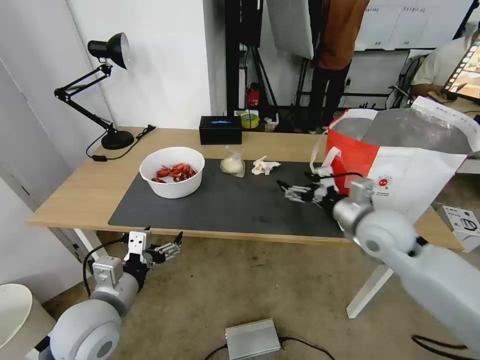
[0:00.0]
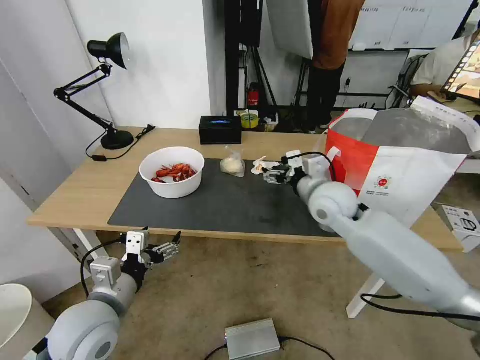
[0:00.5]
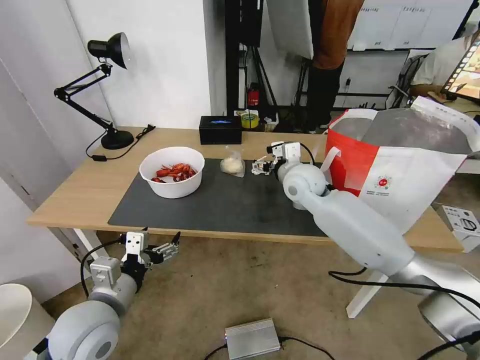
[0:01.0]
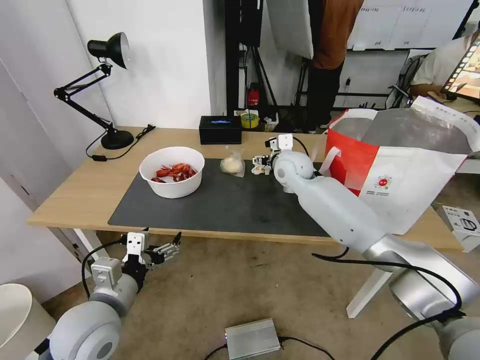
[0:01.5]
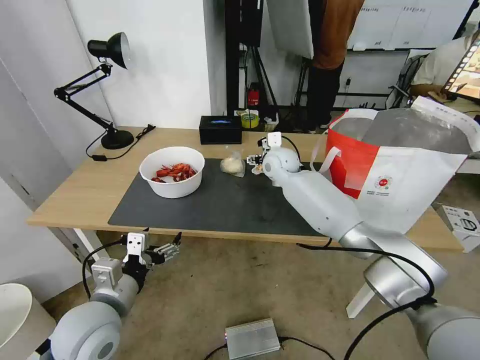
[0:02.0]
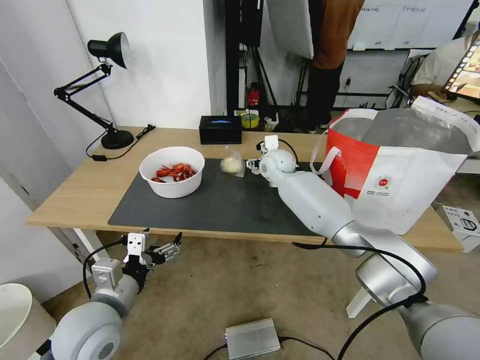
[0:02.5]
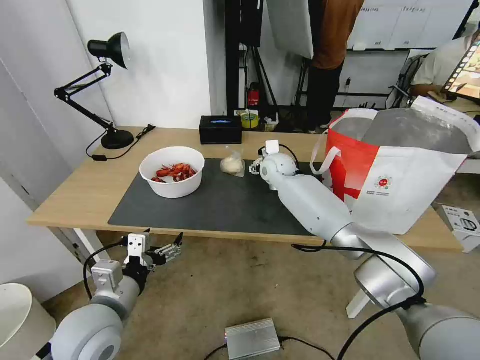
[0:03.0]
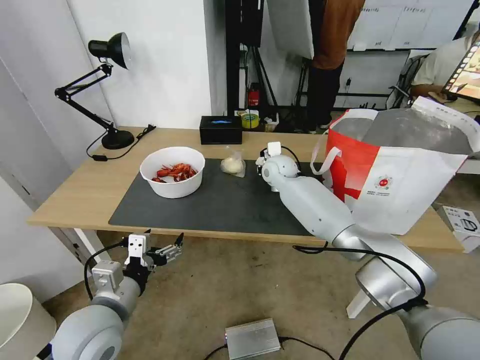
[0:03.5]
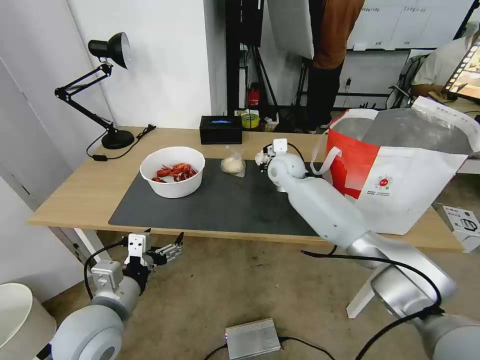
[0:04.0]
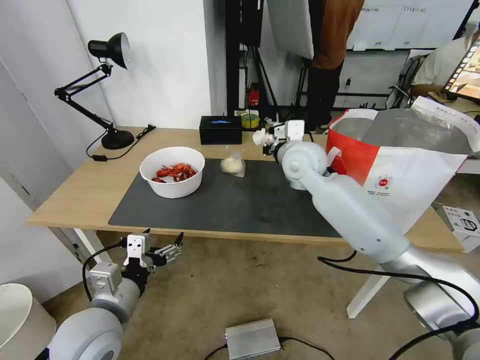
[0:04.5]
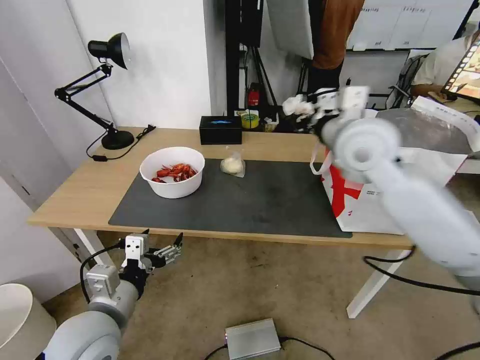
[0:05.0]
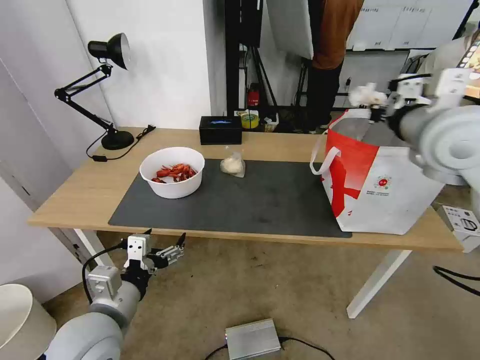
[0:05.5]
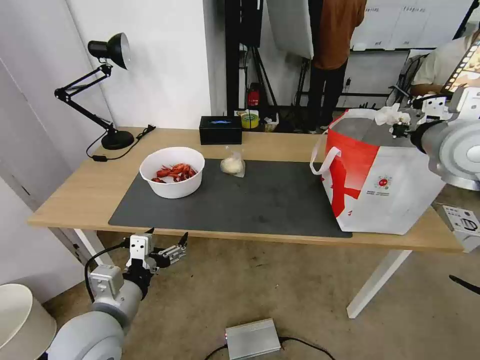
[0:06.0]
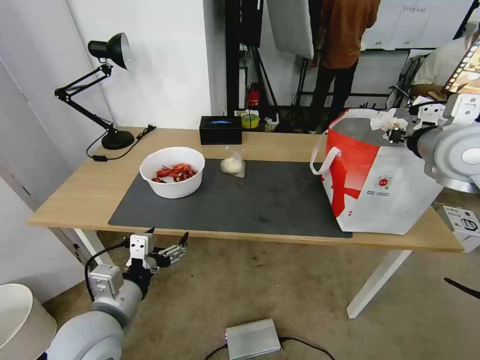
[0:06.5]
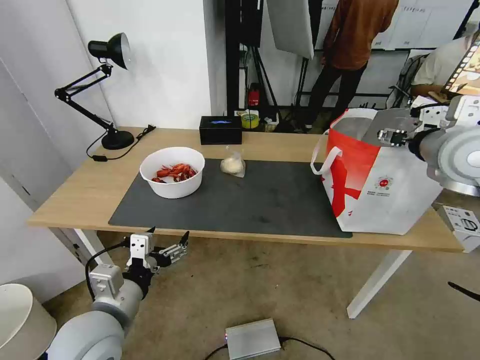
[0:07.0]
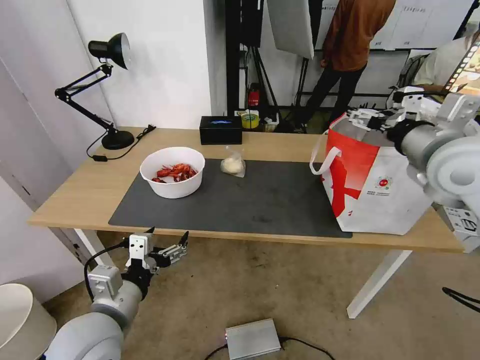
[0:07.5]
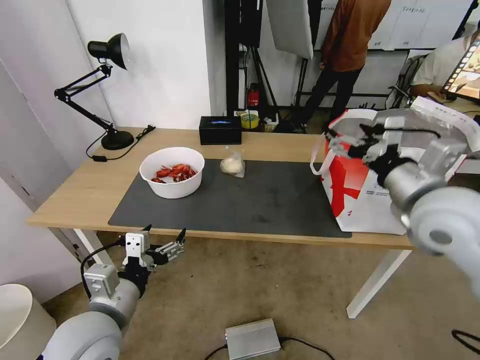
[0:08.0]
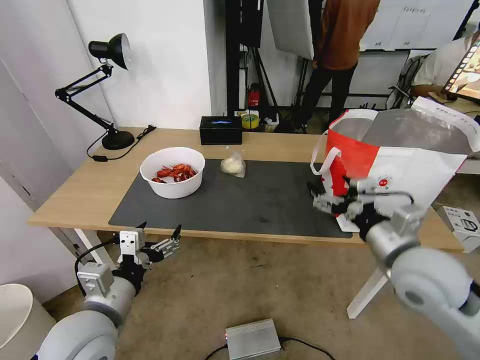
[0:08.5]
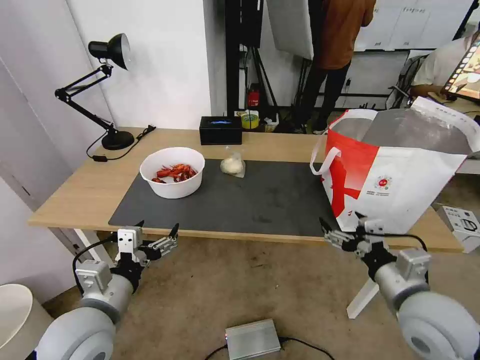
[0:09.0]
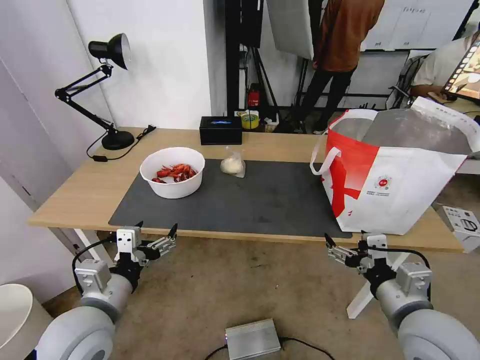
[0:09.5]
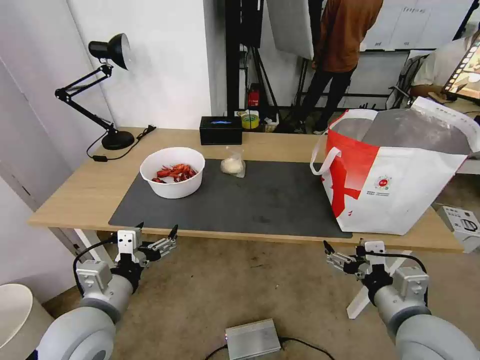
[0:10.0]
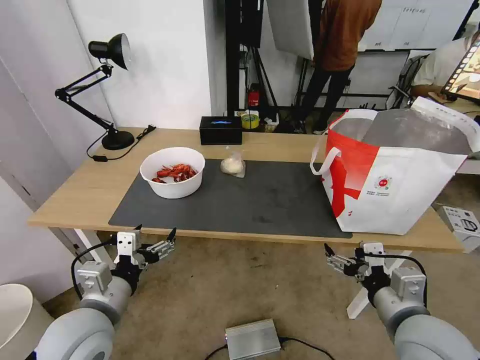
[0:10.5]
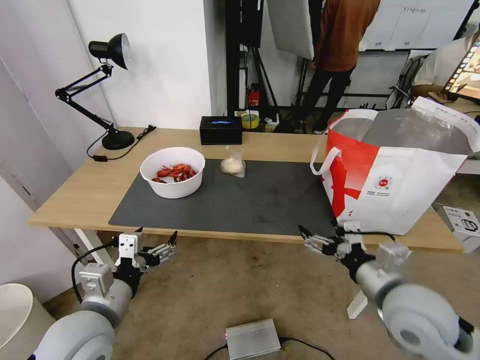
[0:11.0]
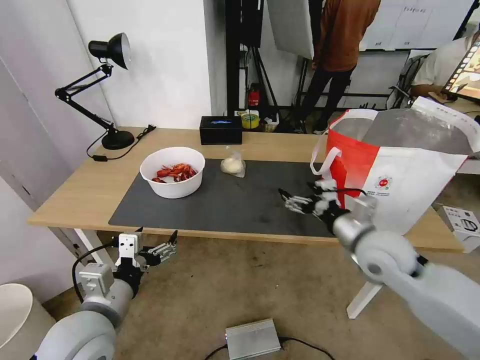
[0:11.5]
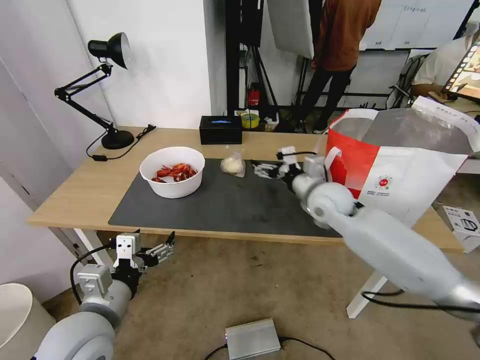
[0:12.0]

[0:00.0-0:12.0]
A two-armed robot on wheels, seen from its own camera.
Task of the whole recording: Pick up the trash from the table and place it into the takeout bag.
0:00.0 to 0:02.0: The right gripper moves forward and to the left, about 30 cm.
0:02.0 to 0:04.0: The right gripper closes up.
0:04.0 to 0:06.0: The right gripper travels to the right, upward and backward by approximately 35 cm.
0:06.0 to 0:08.0: The right gripper travels backward, downward and to the left by some 15 cm, and opens up.
0:08.0 to 0:10.0: The right gripper is displaced downward and backward by about 20 cm.
0:10.0 to 0:12.0: The right gripper moves forward, about 30 cm.

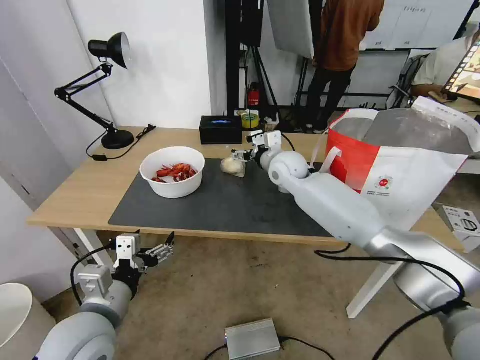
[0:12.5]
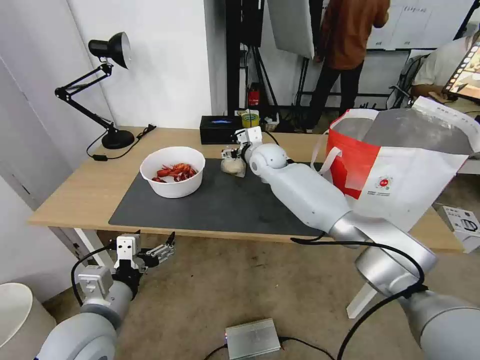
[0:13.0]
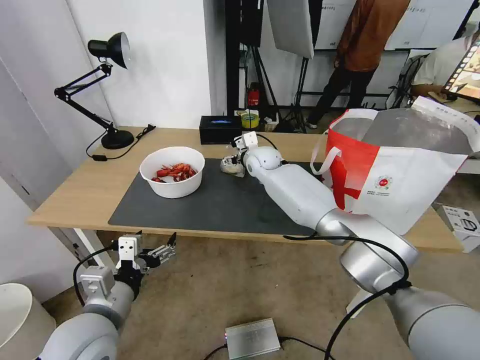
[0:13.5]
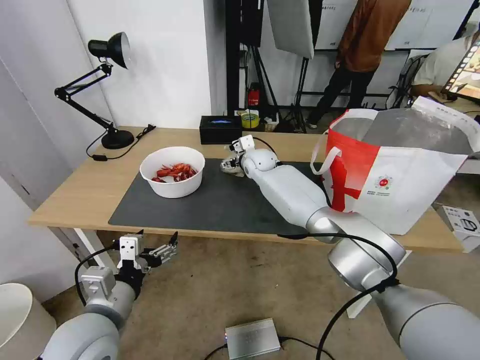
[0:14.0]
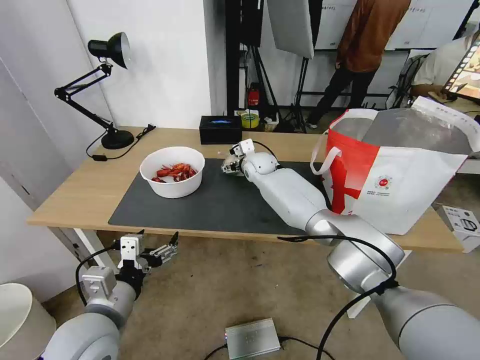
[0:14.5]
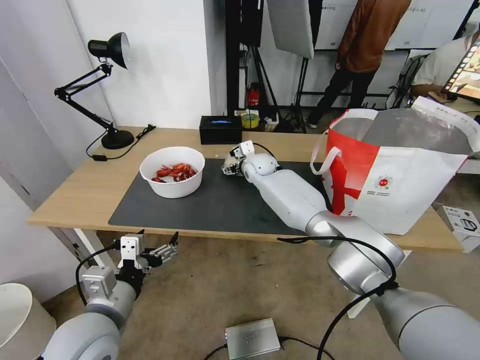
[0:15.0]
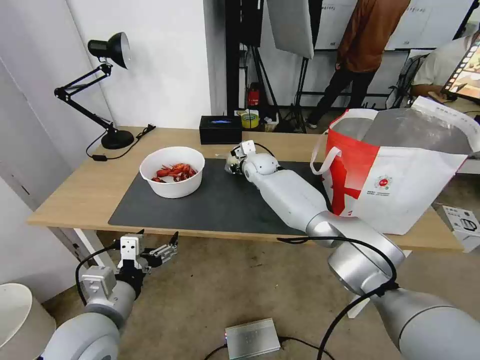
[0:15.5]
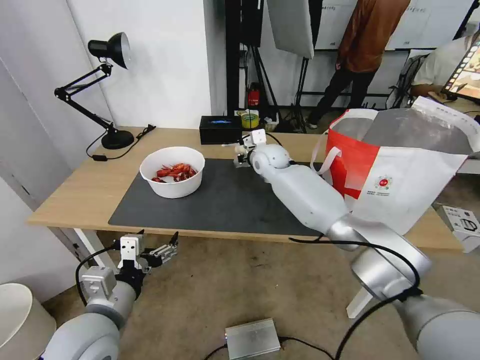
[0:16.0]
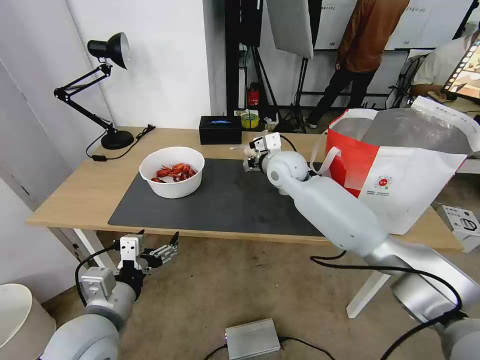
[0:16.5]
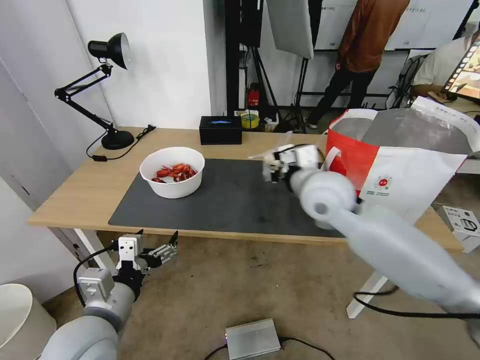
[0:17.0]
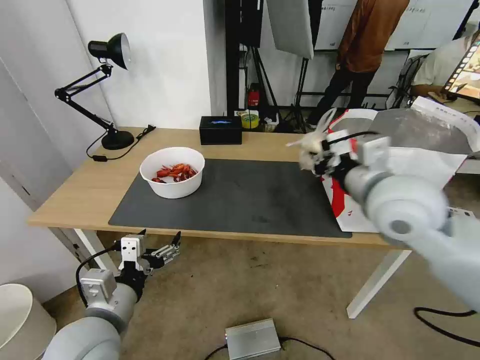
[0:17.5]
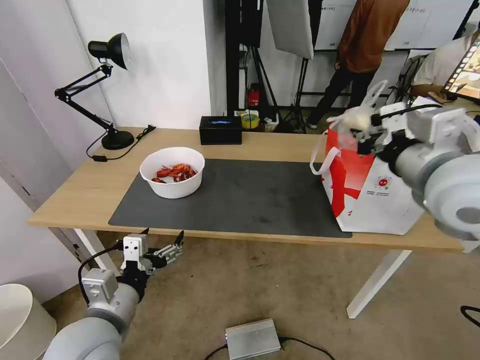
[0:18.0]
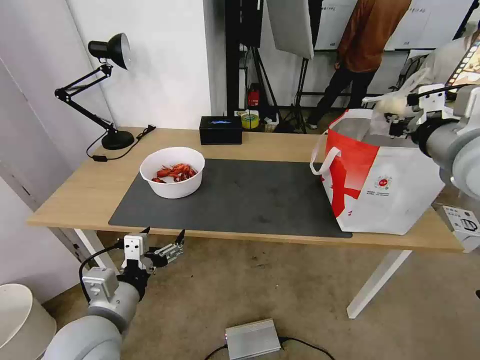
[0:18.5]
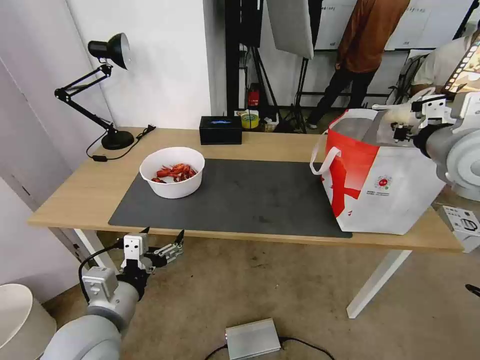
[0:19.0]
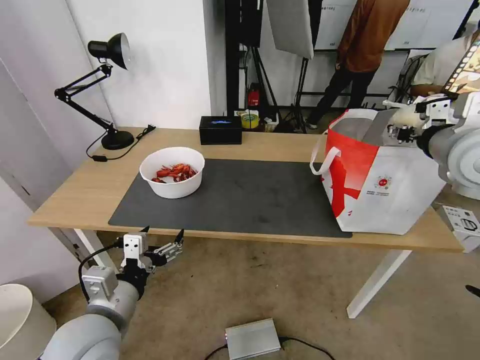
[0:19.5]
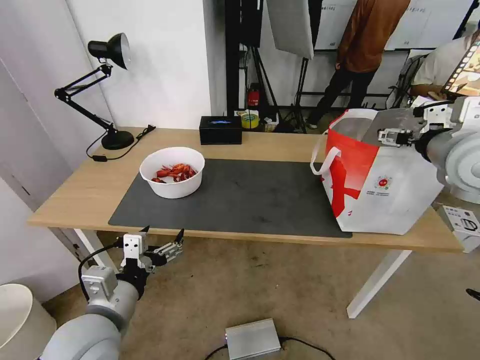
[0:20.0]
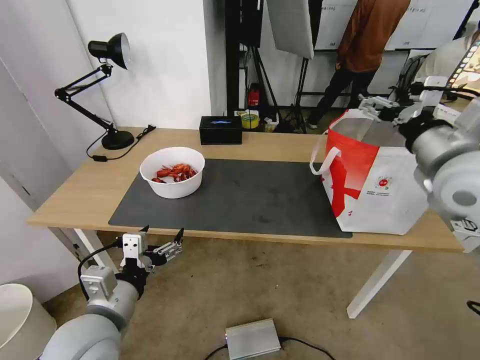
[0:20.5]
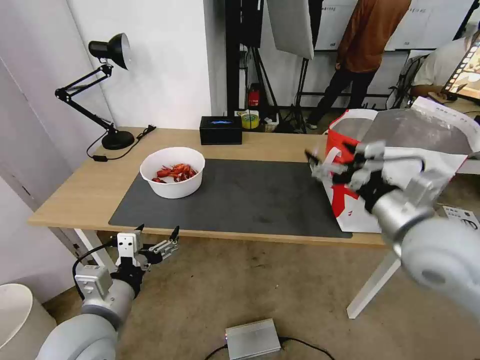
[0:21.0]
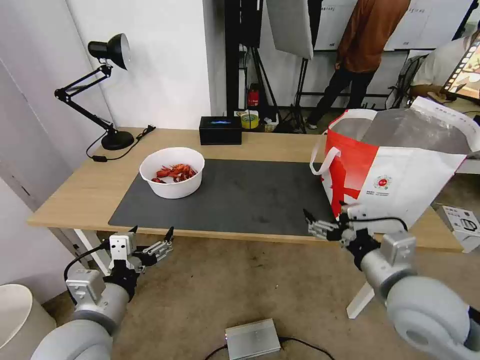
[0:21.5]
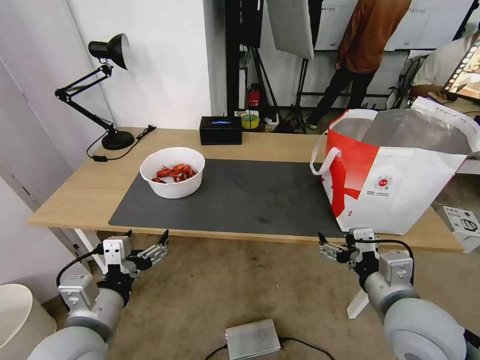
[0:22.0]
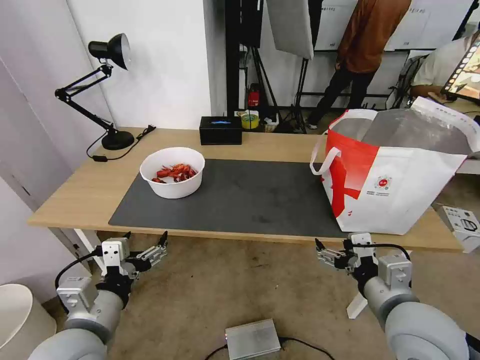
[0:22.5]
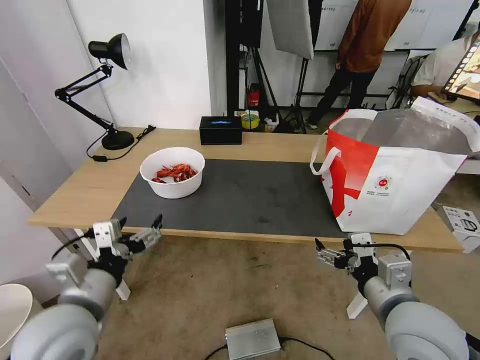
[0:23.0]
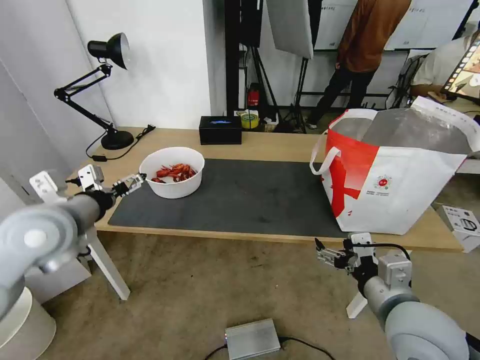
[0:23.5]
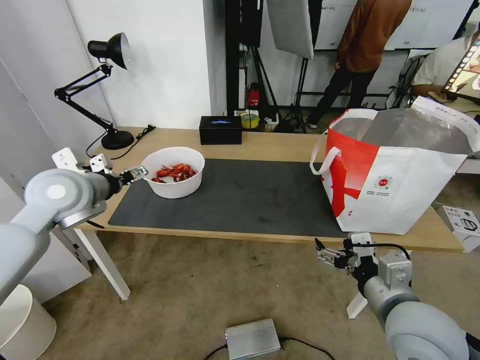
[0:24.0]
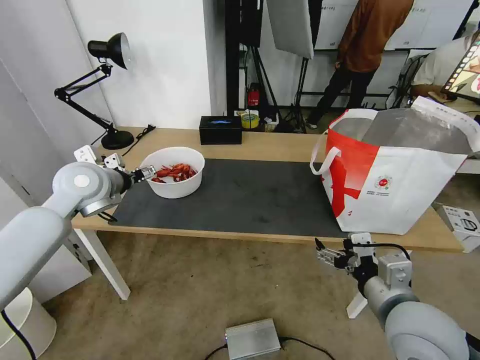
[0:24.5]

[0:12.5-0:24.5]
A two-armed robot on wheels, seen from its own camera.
Task of the whole recording: Pick up the trash from the table and place it into the takeout bag.
0:12.5 to 0:14.5: The right gripper travels forward, to the left and downward by some 10 cm.
0:14.5 to 0:16.5: The right gripper heads backward and upward, covering some 10 cm, and closes.
0:16.5 to 0:18.5: The right gripper is displaced to the right, backward and upward by some 35 cm.
0:18.5 to 0:20.5: The right gripper opens.
0:20.5 to 0:22.5: The right gripper heads downward, backward and to the left, covering some 25 cm.
0:22.5 to 0:24.5: The left gripper heads forward, covering some 25 cm.

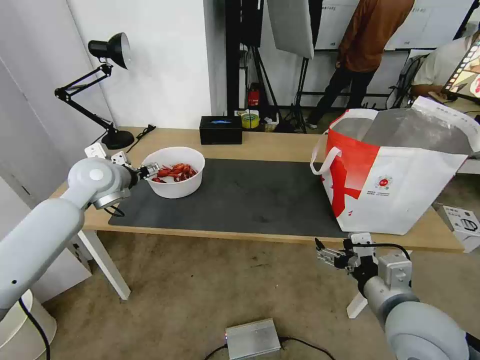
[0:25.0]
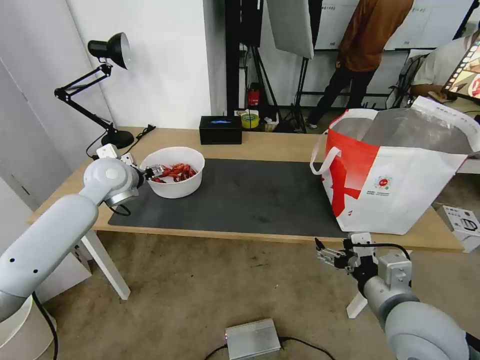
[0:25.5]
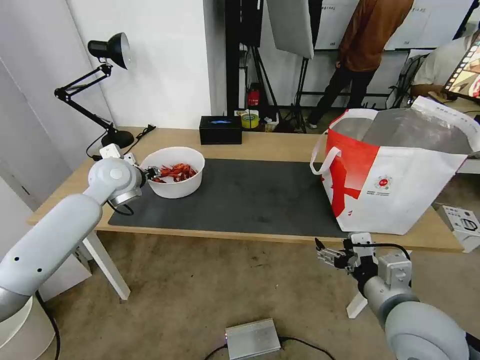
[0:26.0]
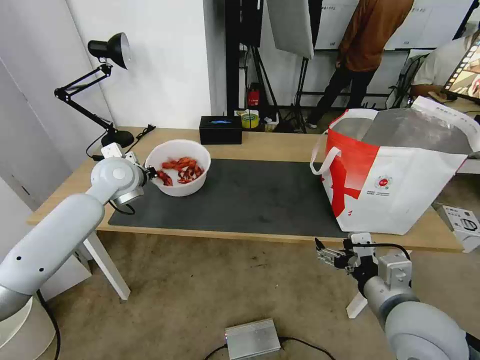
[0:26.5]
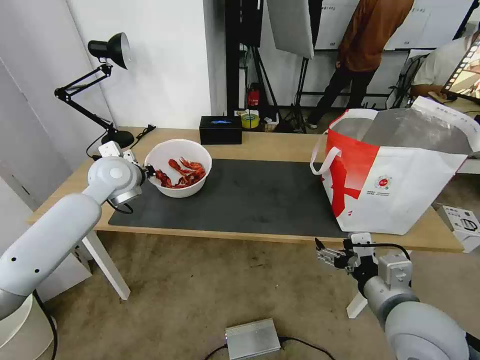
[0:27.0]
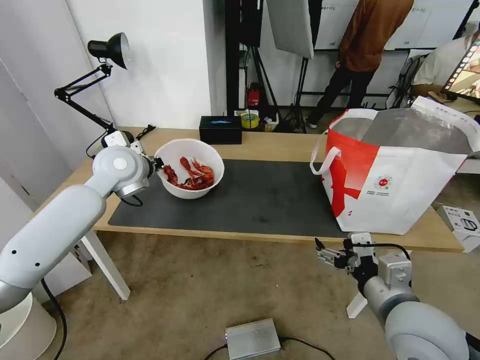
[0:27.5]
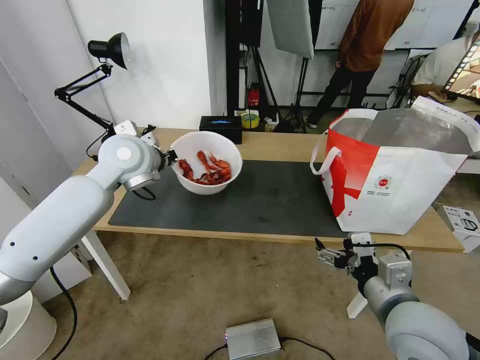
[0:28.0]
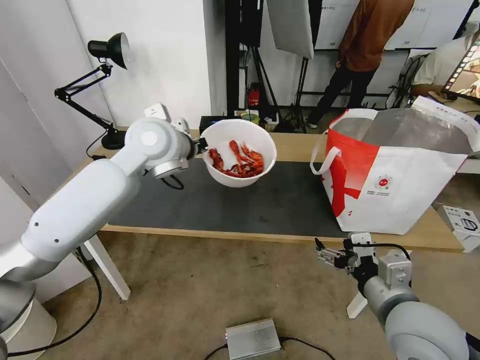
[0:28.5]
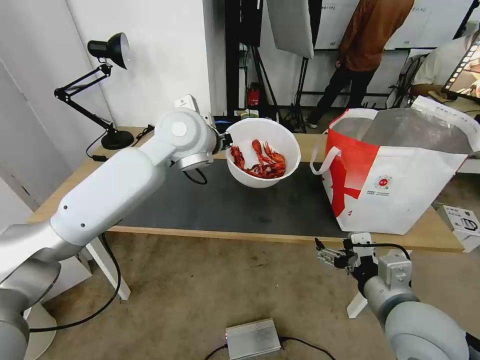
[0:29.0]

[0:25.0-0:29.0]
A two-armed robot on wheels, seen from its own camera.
Task of the whole recording: Pick up the trash from the table and place it into the takeout bag.
0:25.0 to 0:27.0: The left gripper closes up.
0:27.0 to 0:29.0: The left gripper is displaced to the right and upward by about 20 cm.
